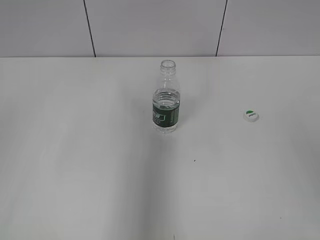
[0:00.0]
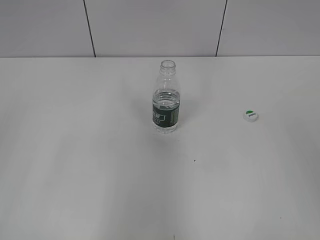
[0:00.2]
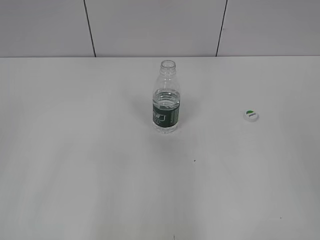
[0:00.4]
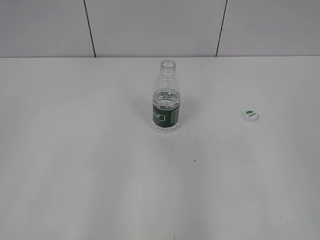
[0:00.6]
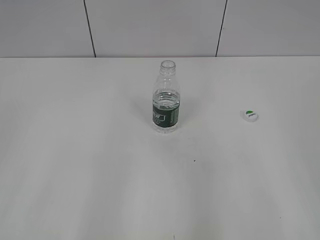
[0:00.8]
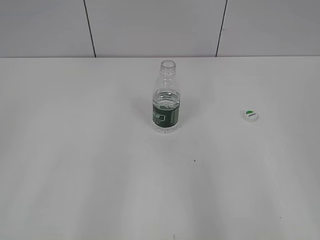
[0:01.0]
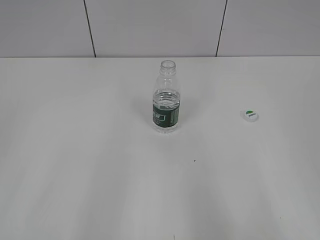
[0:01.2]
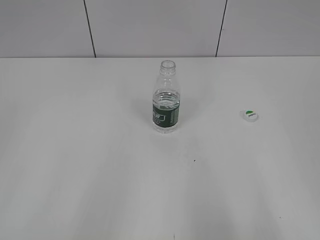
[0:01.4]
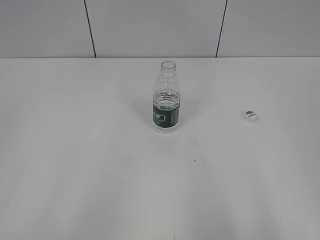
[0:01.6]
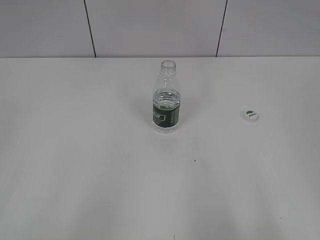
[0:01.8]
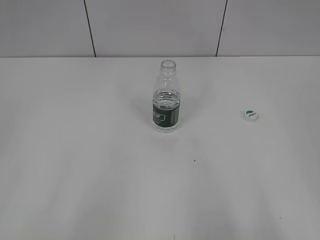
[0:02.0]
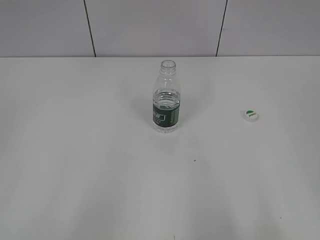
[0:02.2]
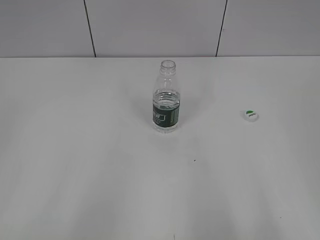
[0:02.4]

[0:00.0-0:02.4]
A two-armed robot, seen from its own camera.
0:00.0 to 0:01.2: The right gripper goes some 15 cm backward and downward, while the left gripper heads backward, covering about 10 cm.

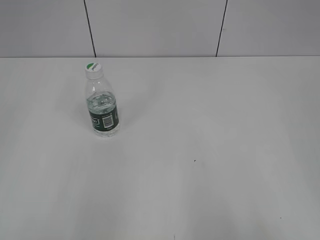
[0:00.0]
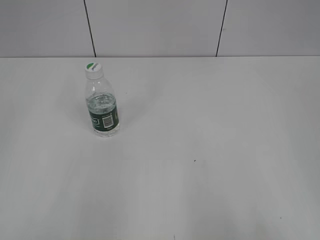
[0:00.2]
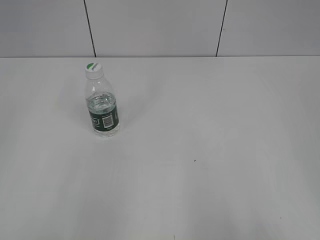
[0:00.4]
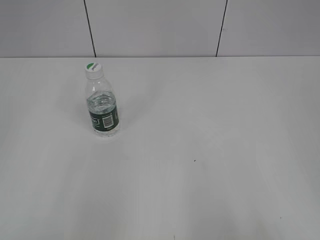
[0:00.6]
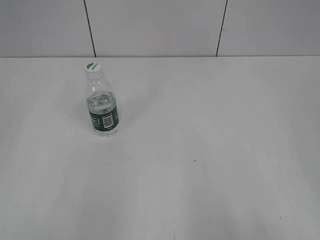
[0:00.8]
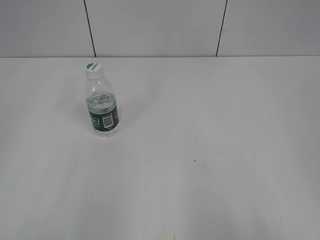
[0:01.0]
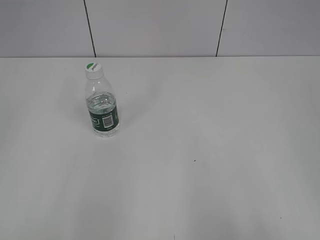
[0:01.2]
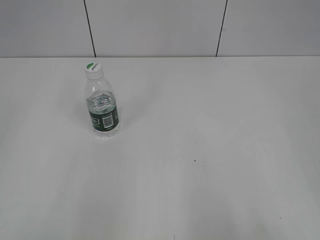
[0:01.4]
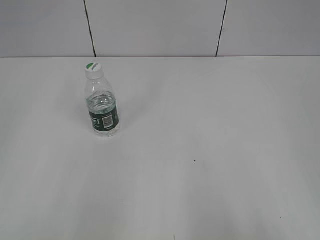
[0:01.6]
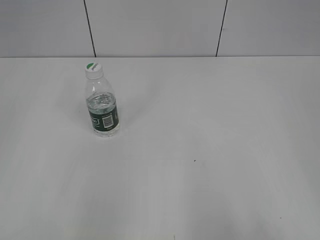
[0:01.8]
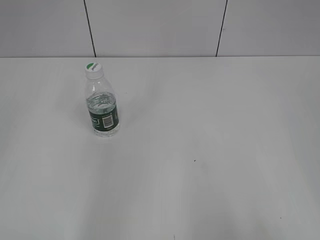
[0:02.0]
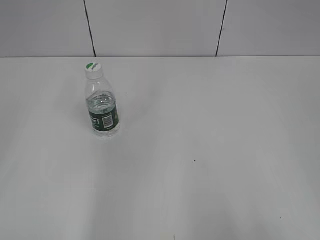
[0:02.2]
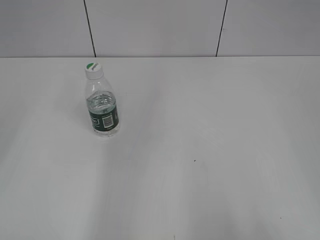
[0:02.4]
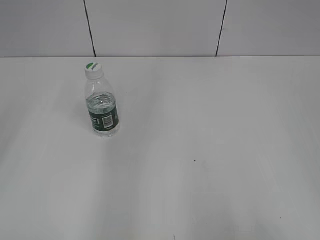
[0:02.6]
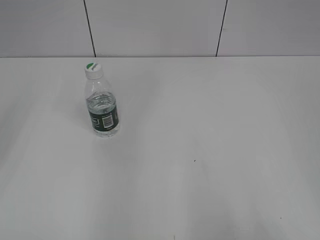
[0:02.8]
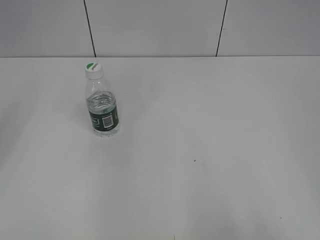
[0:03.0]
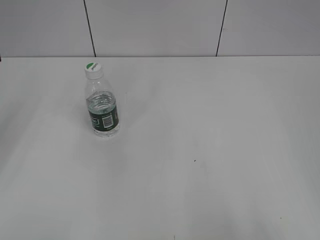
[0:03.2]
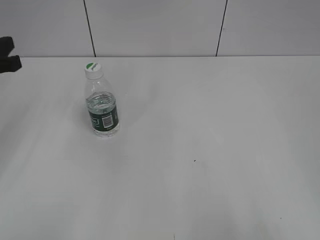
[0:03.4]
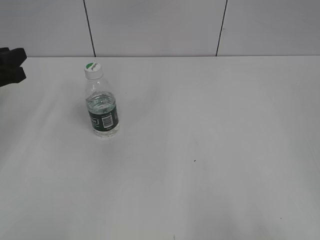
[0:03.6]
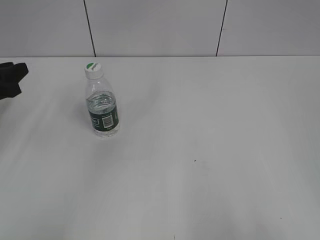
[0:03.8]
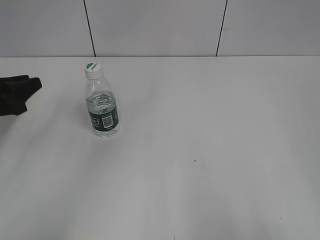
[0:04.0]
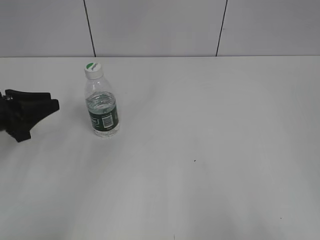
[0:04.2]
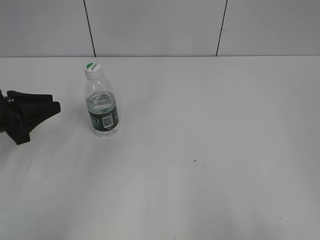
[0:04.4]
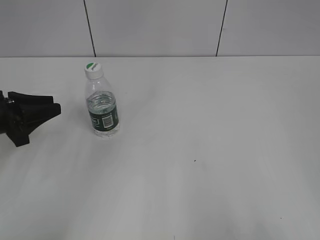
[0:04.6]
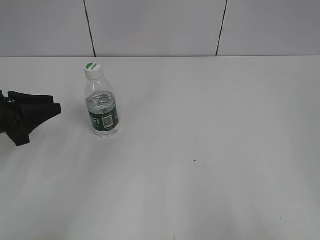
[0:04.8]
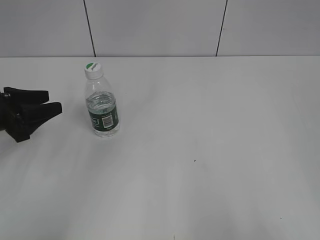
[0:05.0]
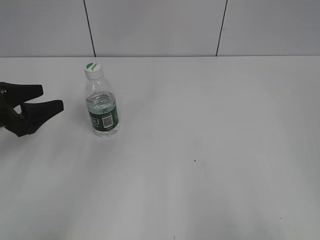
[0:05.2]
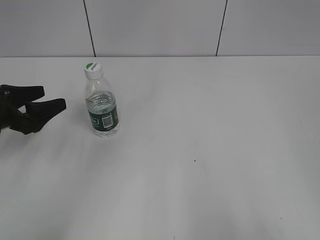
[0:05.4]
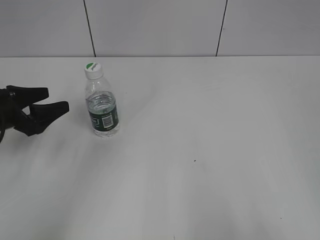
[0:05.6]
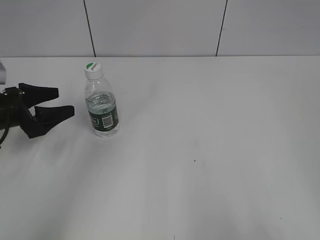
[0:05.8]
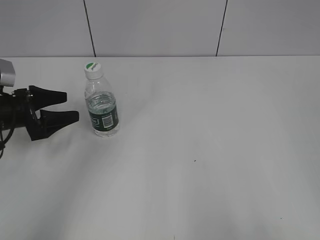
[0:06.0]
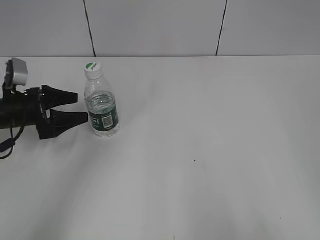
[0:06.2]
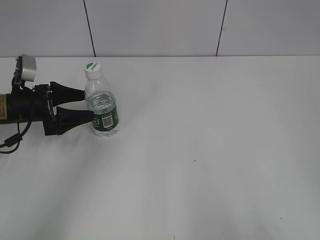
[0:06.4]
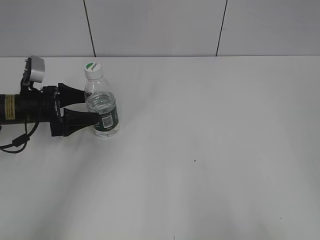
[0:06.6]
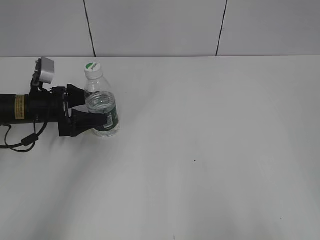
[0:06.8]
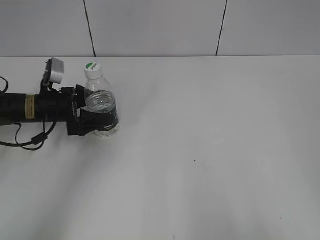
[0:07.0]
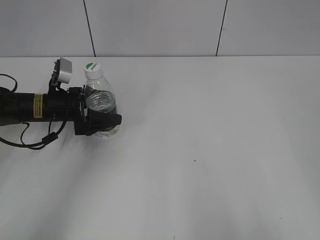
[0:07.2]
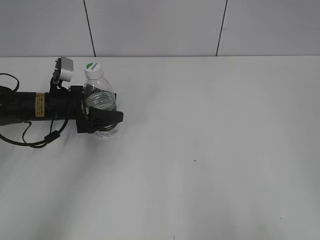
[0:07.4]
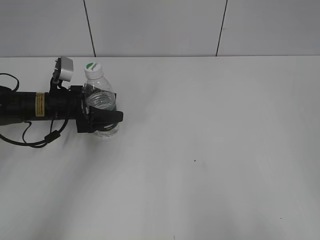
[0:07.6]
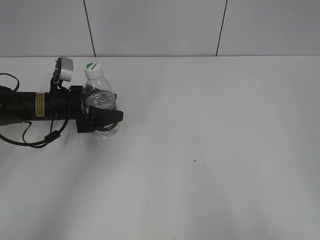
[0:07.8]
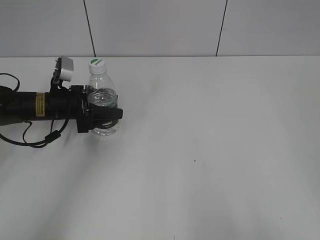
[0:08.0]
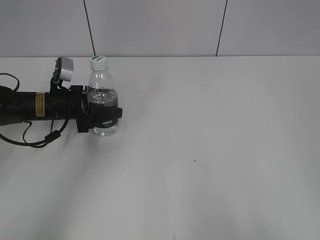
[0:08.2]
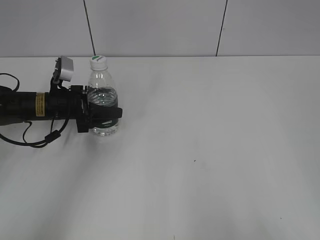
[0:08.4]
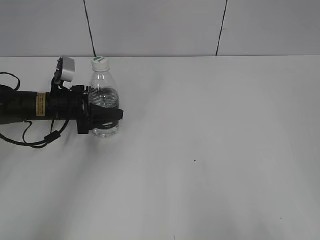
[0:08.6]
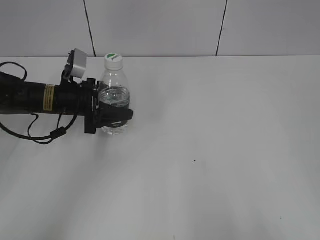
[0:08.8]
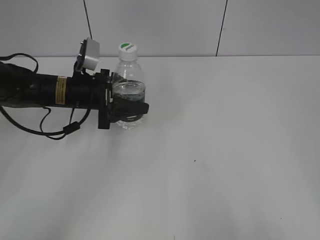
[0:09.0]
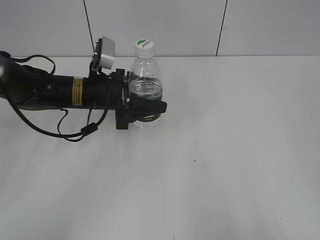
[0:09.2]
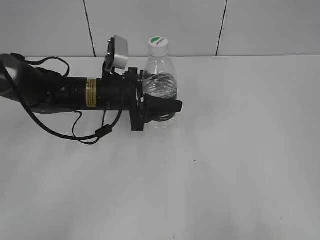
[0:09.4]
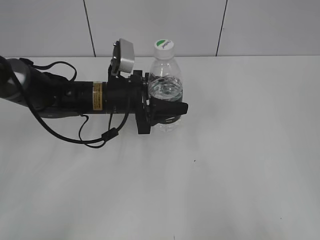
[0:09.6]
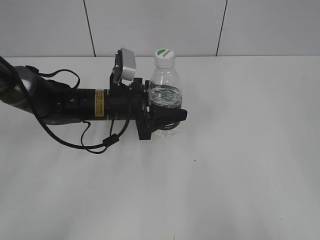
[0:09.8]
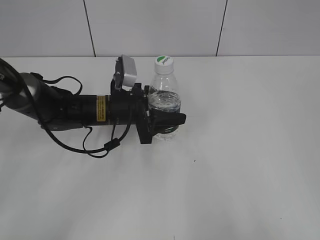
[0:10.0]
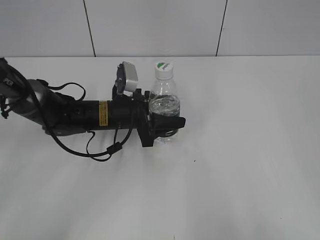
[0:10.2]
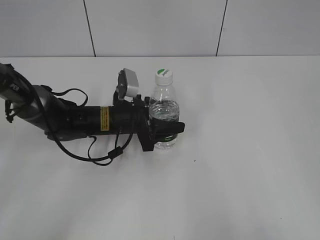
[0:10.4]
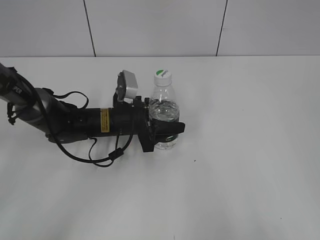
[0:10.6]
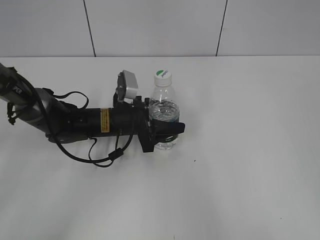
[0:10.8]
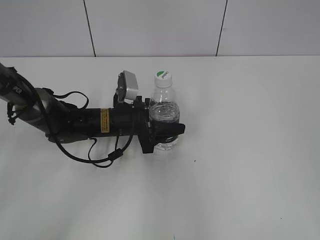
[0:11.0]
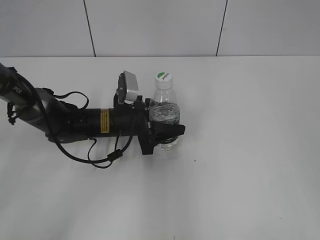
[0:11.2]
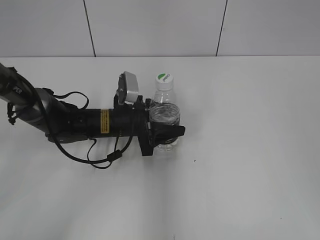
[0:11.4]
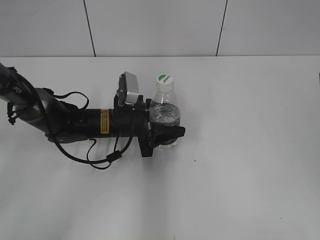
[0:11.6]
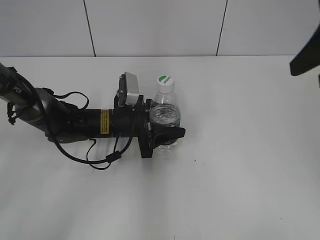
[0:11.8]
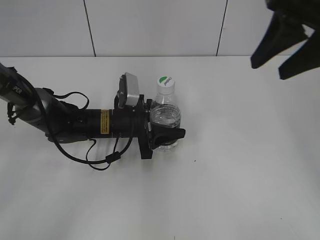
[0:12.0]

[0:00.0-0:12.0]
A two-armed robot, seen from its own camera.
Step, 0:00.0 to 0:08.4: Grasp the bottle and move it to the center of the table with the left gripper.
0:03.0 to 0:04.4: The left gripper shifts roughly 15 cm downward.
0:04.4 to 0:06.0: The left gripper moves approximately 5 cm, and opens its fingers.
0:06.0 to 0:07.6: The left gripper shifts roughly 10 cm to the right and forward.
0:07.6 to 0:09.0: The left gripper travels to the right by about 5 cm, and closes up.
0:09.0 to 0:10.4: The left gripper moves to the right and downward, some 10 cm.
0:10.4 to 0:12.0: The right gripper heads forward, covering roughly 30 cm.

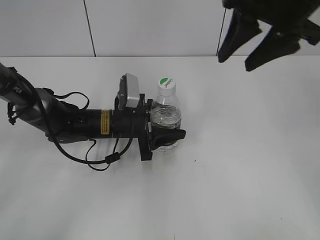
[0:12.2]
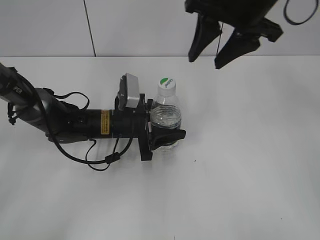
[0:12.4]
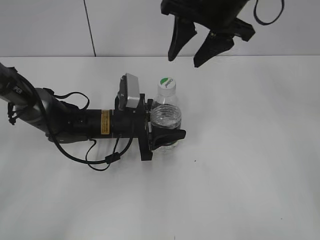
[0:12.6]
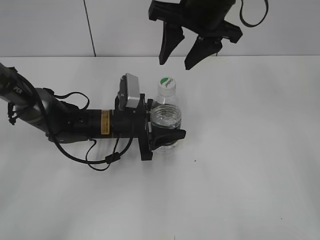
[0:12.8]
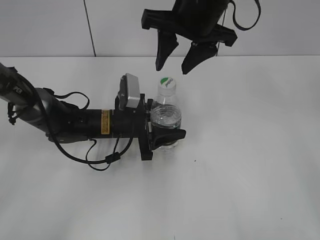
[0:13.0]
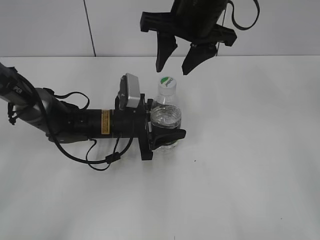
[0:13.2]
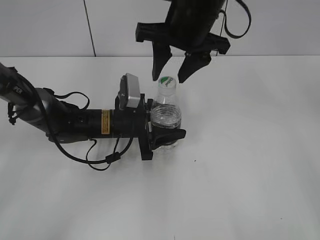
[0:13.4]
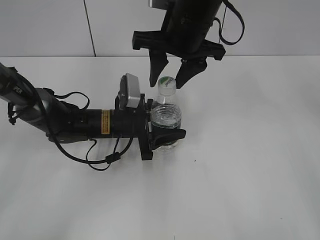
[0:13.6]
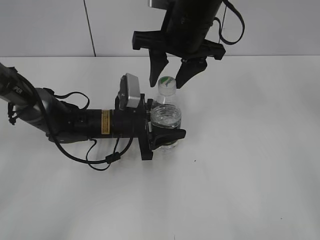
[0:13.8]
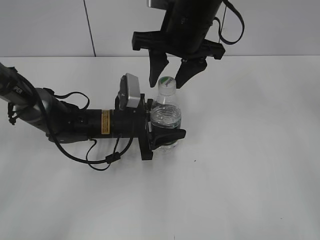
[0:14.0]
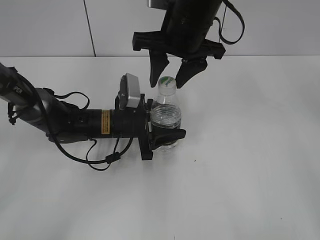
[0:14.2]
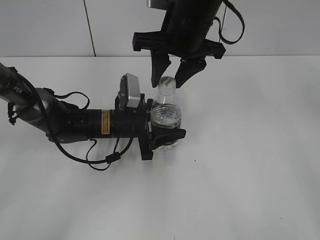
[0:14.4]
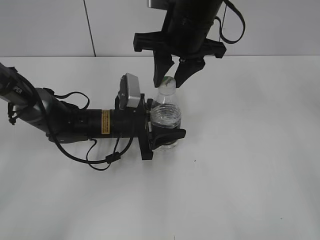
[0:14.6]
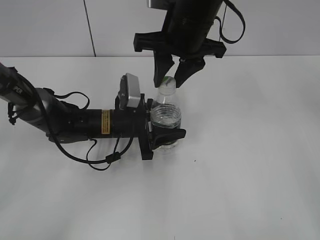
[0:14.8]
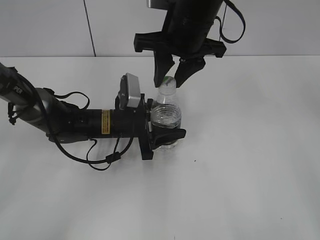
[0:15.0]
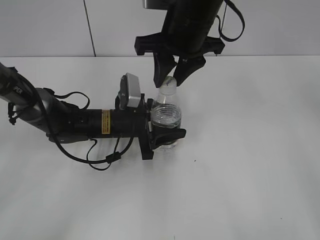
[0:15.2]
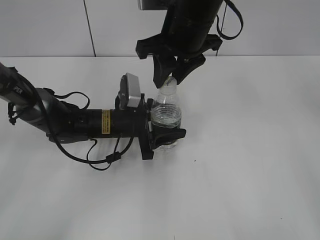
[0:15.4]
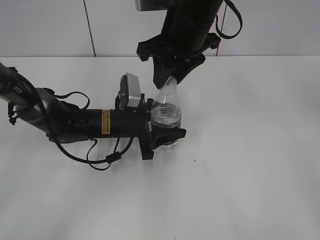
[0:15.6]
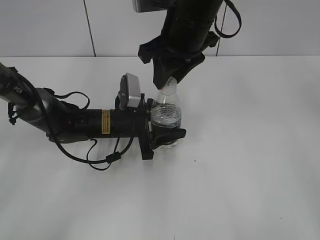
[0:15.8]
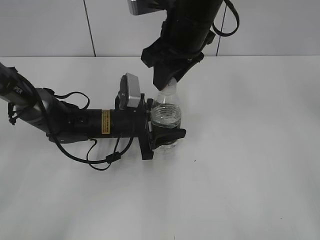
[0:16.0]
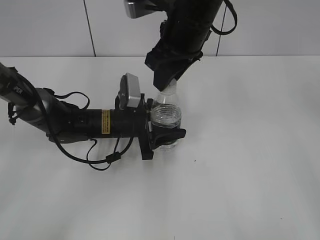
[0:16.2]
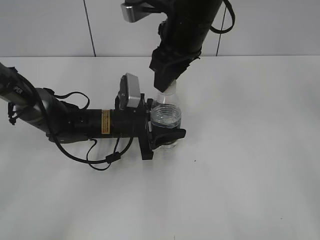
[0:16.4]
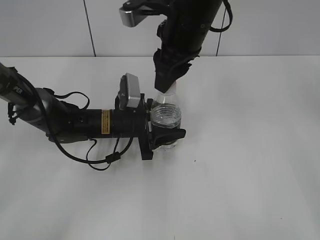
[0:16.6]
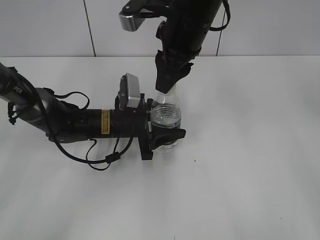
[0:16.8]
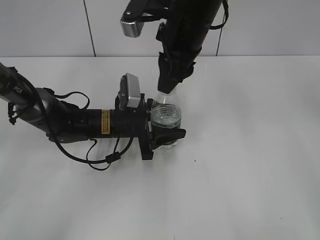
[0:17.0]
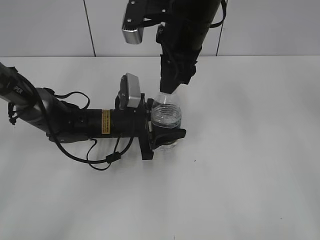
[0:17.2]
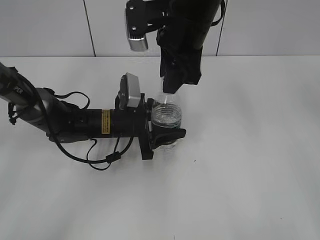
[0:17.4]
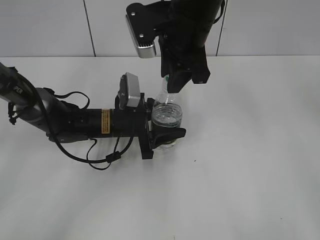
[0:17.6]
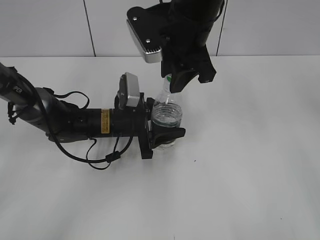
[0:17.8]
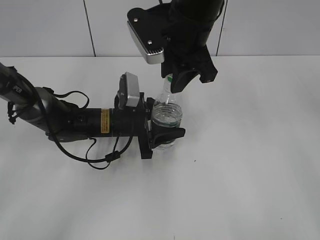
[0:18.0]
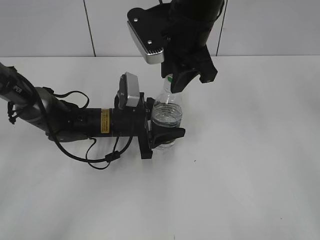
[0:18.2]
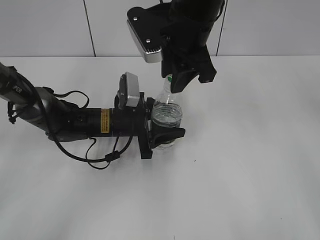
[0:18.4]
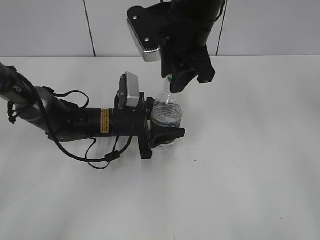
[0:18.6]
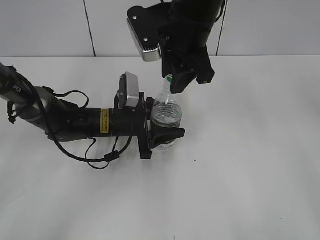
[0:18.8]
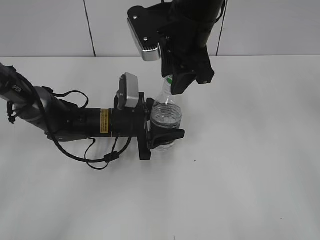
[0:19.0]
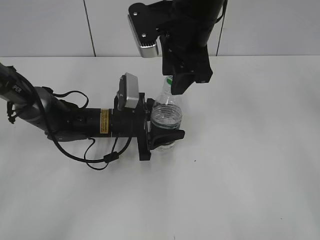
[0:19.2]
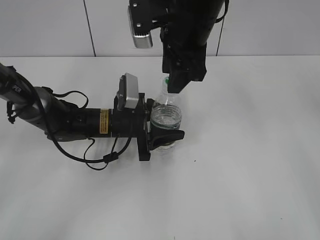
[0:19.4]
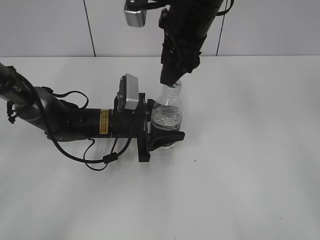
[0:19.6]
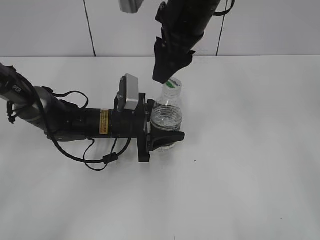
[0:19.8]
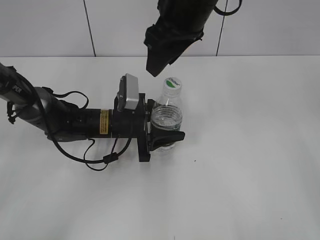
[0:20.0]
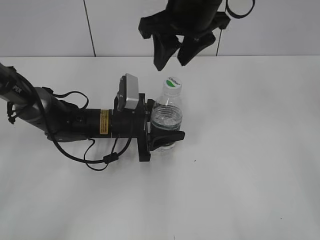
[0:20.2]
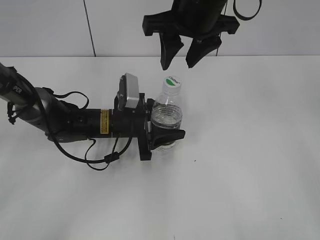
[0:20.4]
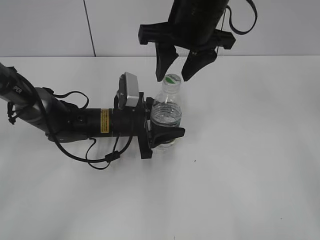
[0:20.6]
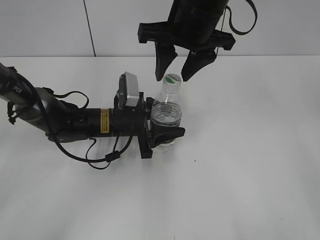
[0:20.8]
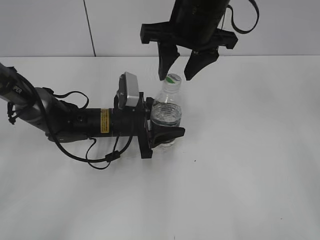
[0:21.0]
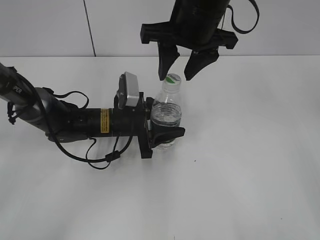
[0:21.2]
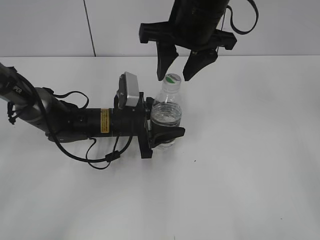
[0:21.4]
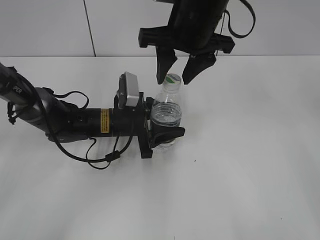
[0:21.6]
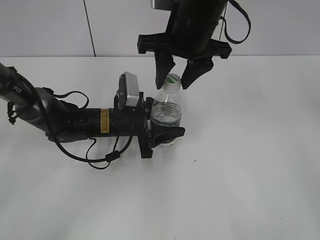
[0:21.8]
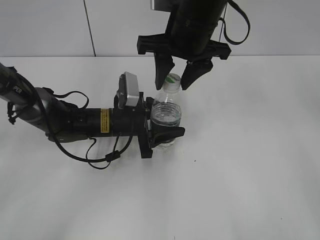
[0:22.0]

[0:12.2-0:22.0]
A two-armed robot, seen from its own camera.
0:12.2 to 0:13.6: The right gripper shifts some 15 cm to the left and downward.
0:13.6 to 0:15.0: The right gripper closes up.
0:17.8 to 0:19.2: The right gripper opens.
0:20.6 to 0:22.0: The grippers move only a little.
